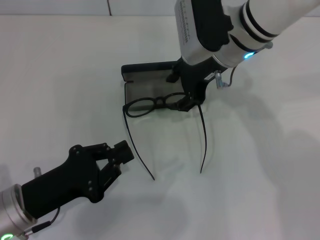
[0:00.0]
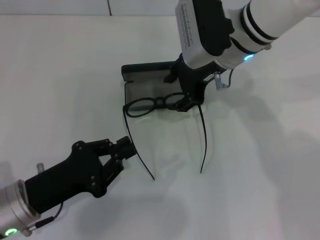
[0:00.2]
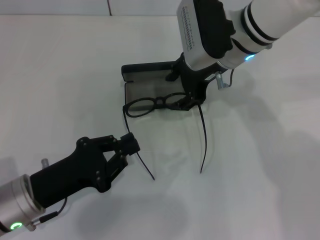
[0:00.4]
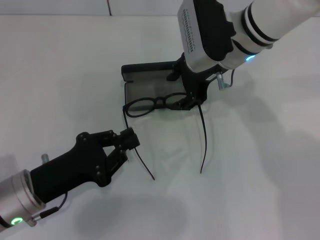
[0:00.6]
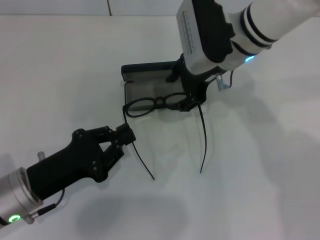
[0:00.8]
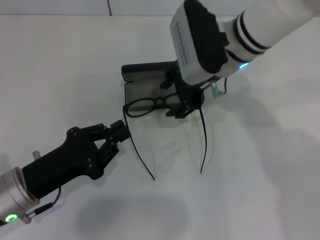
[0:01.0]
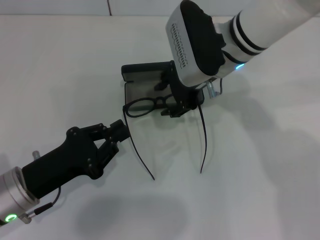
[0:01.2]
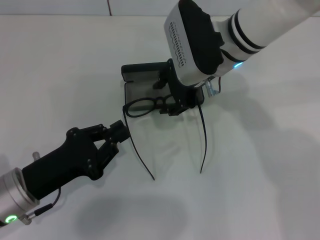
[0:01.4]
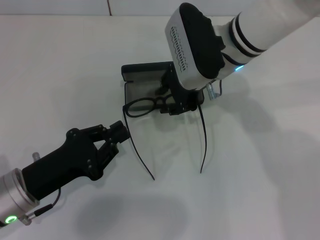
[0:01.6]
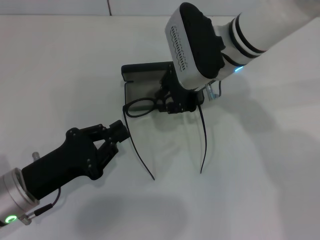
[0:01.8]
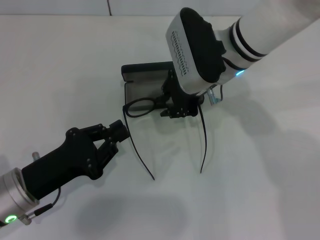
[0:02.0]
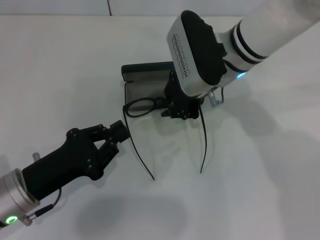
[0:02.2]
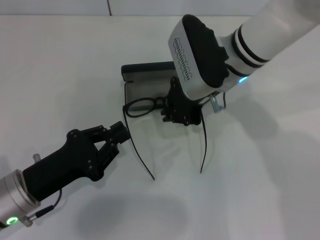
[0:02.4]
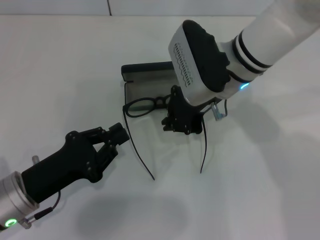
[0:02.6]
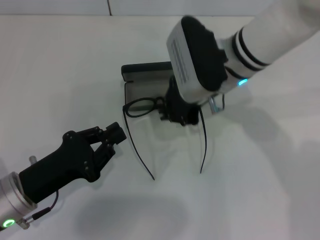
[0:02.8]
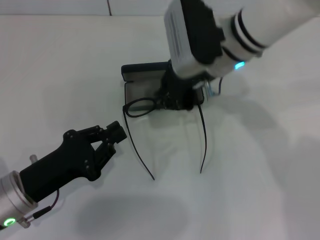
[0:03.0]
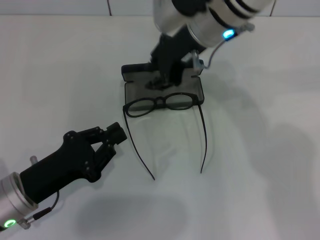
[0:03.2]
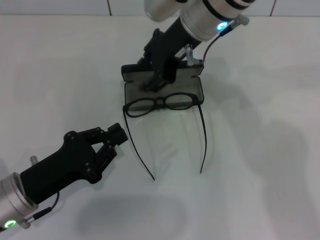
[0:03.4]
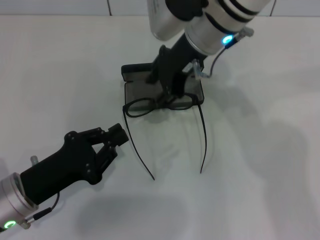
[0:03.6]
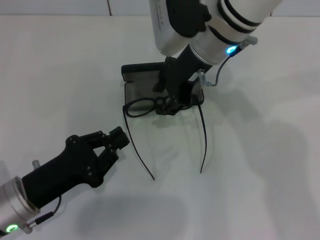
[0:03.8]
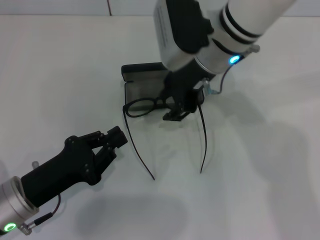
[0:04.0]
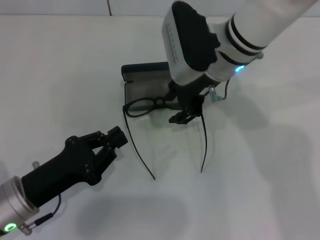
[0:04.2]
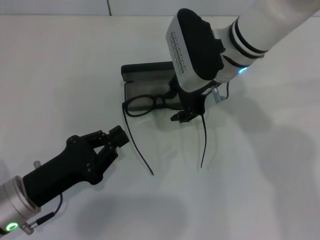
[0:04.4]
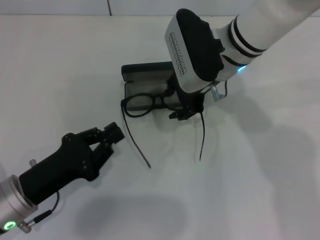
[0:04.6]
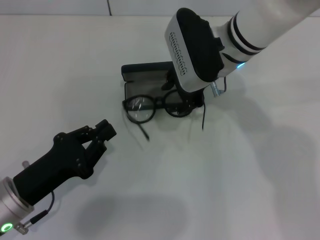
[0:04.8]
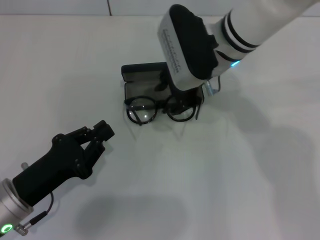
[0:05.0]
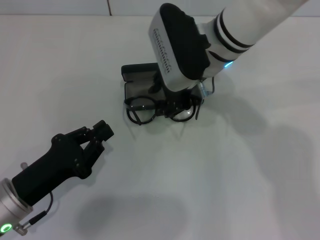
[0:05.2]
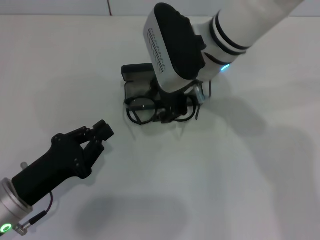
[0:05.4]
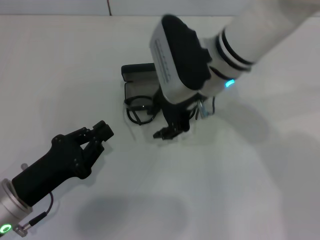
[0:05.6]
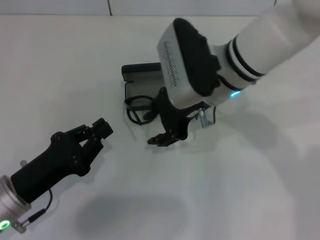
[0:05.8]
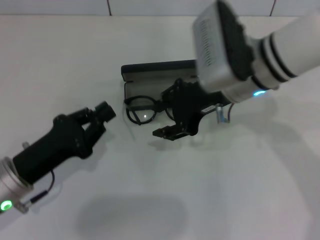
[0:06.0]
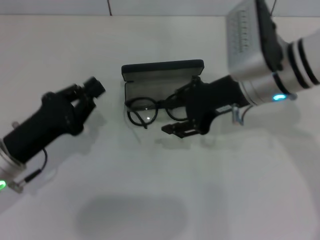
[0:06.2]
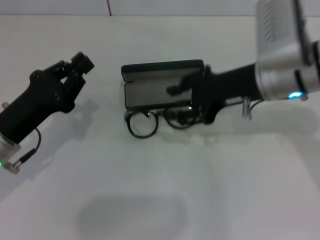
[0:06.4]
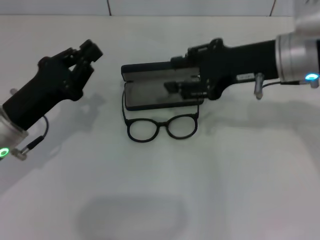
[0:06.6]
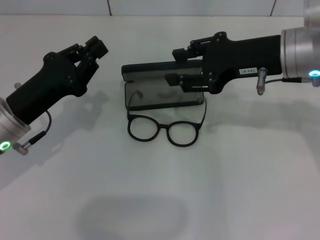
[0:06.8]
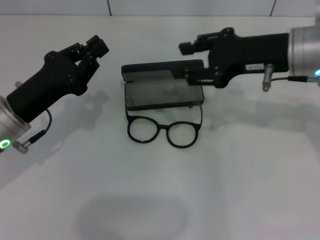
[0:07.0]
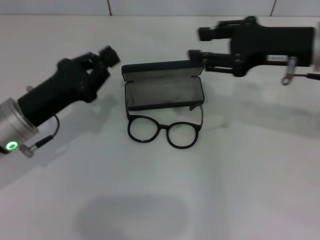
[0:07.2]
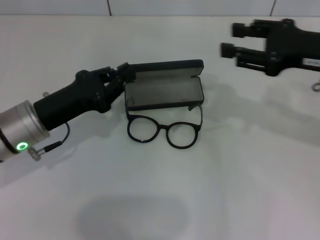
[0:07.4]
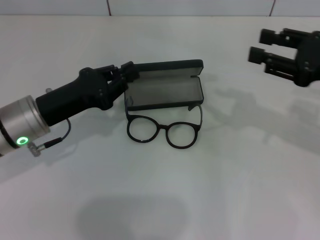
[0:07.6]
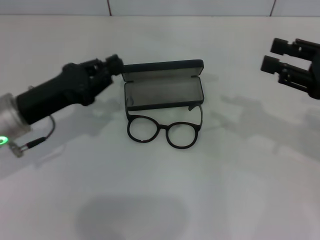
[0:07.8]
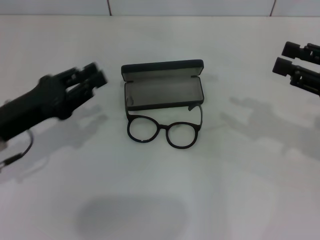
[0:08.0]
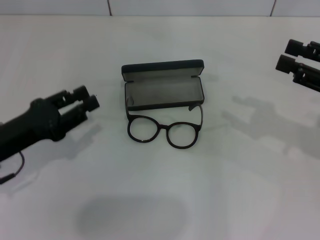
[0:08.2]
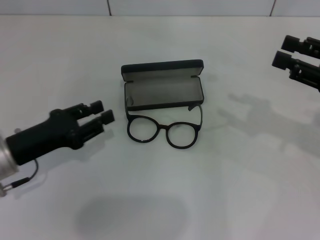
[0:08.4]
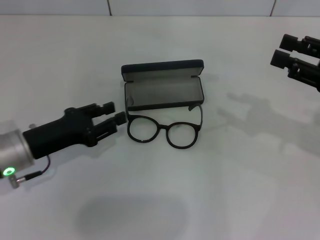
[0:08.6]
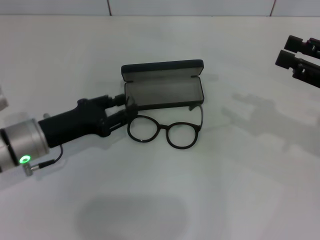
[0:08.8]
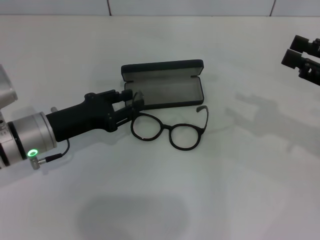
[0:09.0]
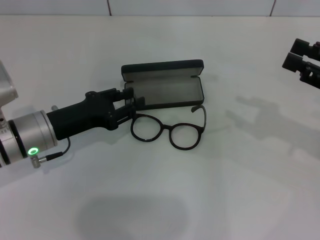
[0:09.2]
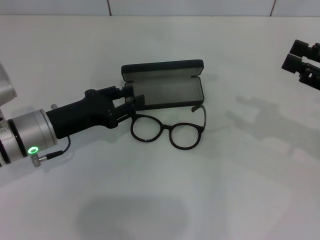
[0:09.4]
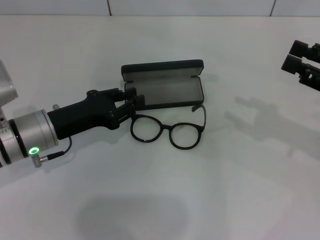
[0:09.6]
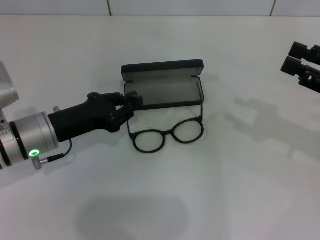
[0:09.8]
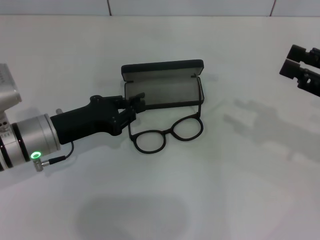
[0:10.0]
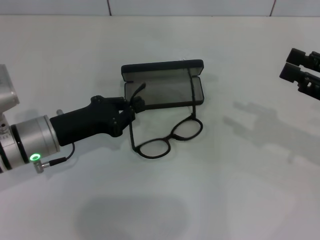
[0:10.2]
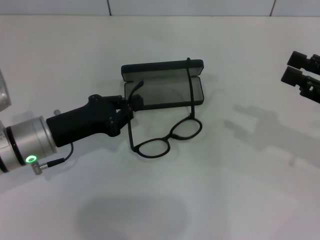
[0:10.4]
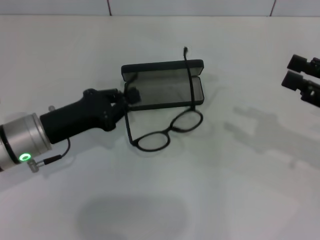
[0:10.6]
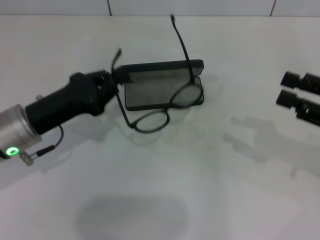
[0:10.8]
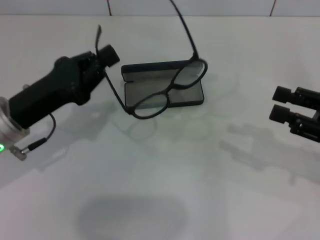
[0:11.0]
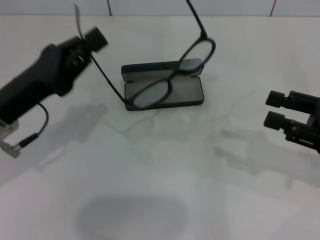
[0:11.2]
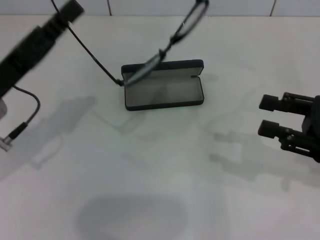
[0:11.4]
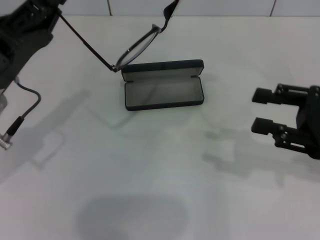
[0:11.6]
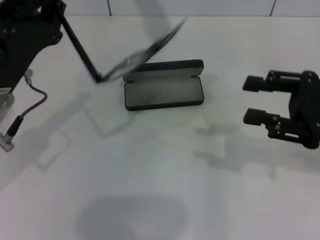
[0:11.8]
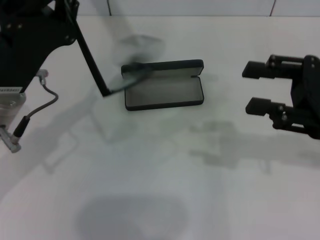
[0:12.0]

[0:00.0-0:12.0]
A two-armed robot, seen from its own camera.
Step, 0:00.0 to 0:10.0: Grab the glasses with your left hand.
0:00.0 to 0:01.6: The grippers move only a little.
0:01.6 to 0:03.0: The right gripper closes its fingers.
0:03.0 to 0:04.4: The right gripper opens.
0:04.4 to 0:06.0: The right gripper moves about 5 cm.
0:06.0 to 0:07.6: The right gripper heads to the right, covering some 20 cm; the left gripper moves forward, some 10 cm.
0:07.6 to 0:09.0: The left gripper opens.
0:09.0 to 0:10.4: The left gripper closes up.
0:10.4 to 0:12.0: The right gripper shifts approximately 5 cm to the left. The left gripper heads upward, covering some 5 cm.

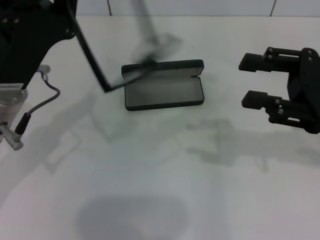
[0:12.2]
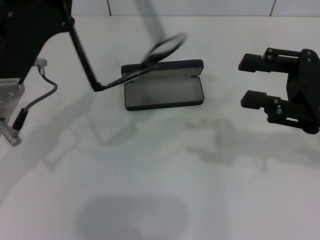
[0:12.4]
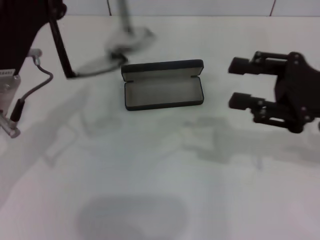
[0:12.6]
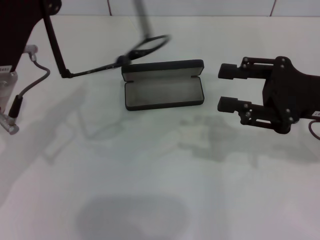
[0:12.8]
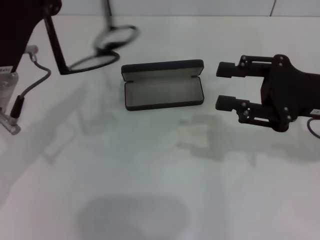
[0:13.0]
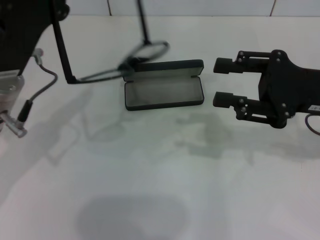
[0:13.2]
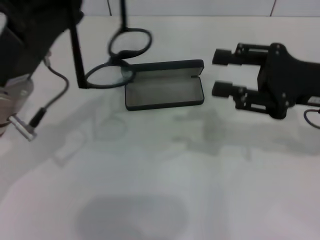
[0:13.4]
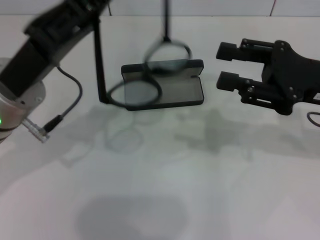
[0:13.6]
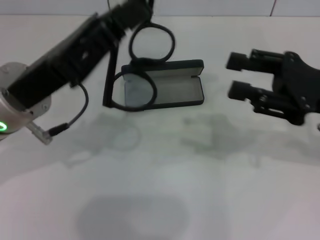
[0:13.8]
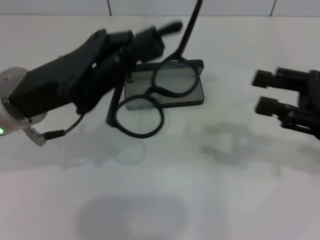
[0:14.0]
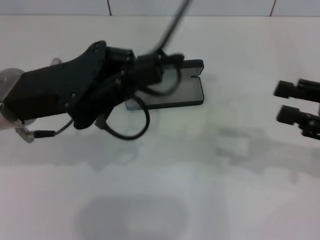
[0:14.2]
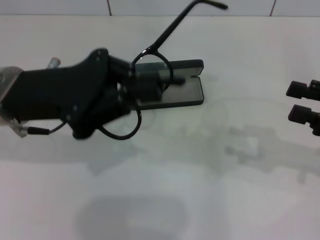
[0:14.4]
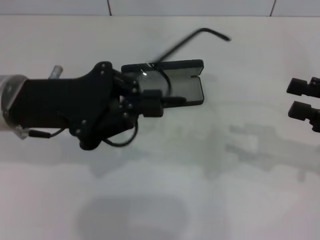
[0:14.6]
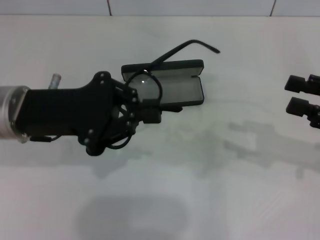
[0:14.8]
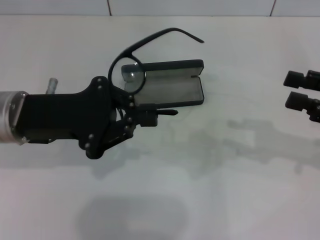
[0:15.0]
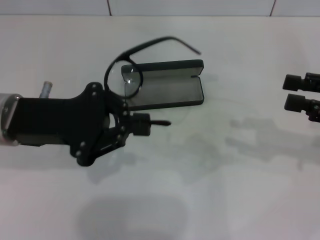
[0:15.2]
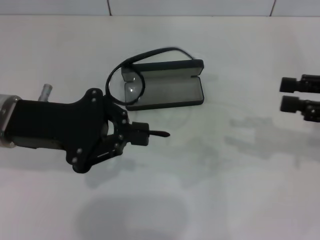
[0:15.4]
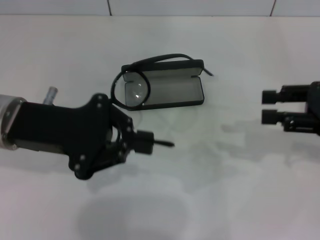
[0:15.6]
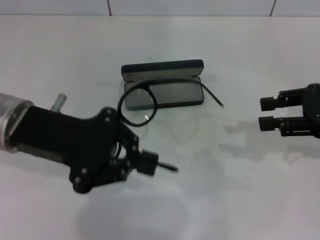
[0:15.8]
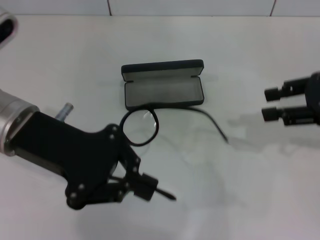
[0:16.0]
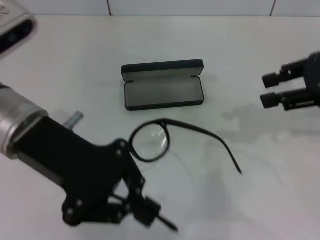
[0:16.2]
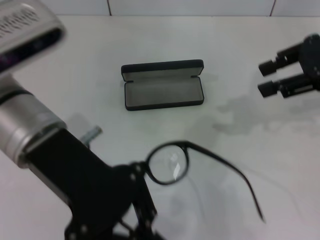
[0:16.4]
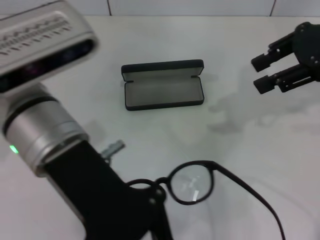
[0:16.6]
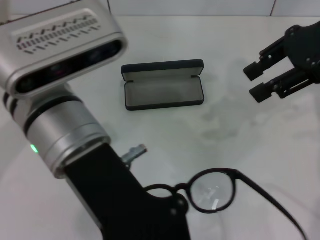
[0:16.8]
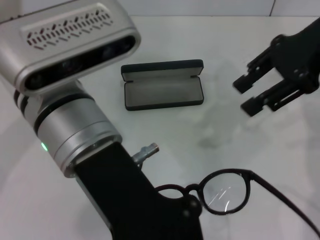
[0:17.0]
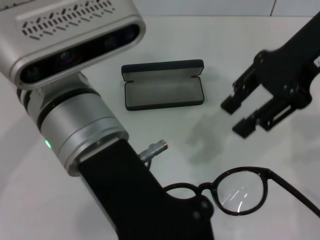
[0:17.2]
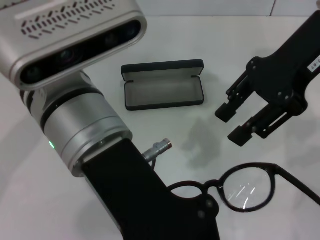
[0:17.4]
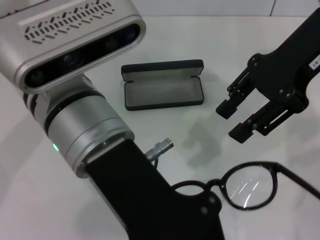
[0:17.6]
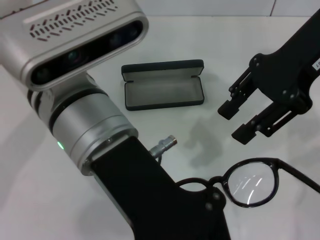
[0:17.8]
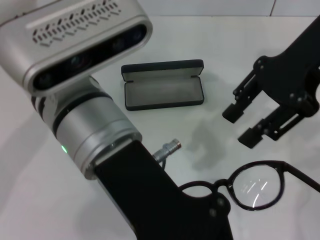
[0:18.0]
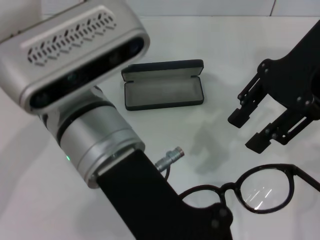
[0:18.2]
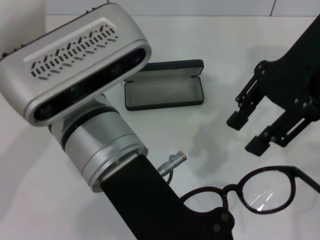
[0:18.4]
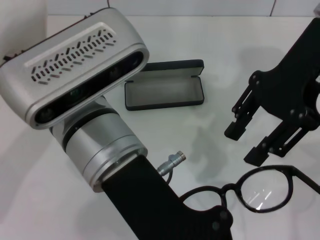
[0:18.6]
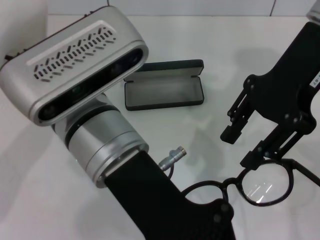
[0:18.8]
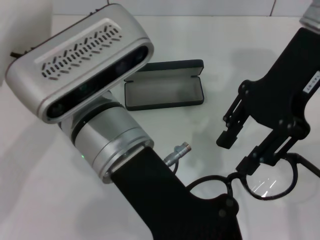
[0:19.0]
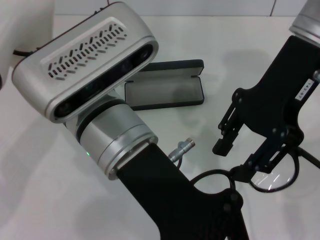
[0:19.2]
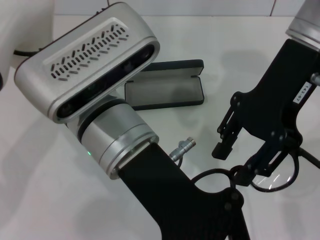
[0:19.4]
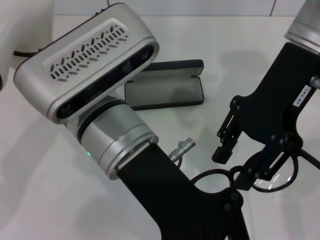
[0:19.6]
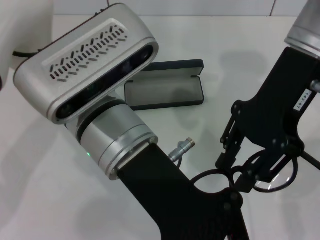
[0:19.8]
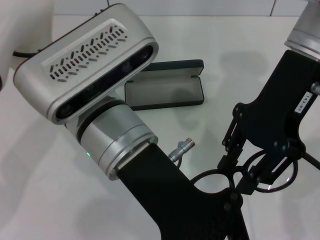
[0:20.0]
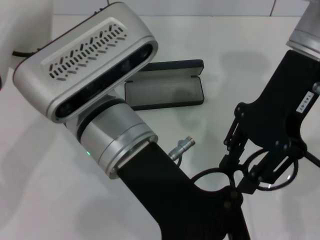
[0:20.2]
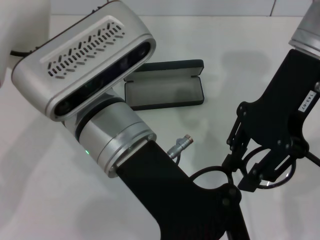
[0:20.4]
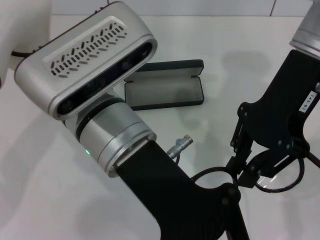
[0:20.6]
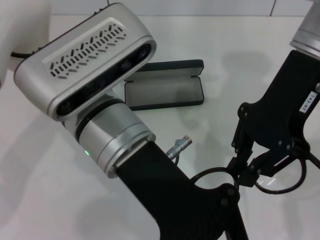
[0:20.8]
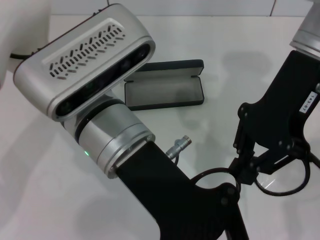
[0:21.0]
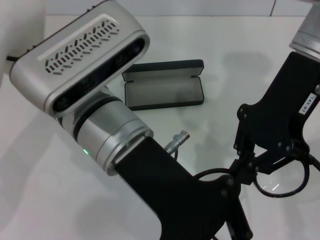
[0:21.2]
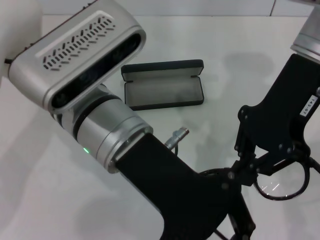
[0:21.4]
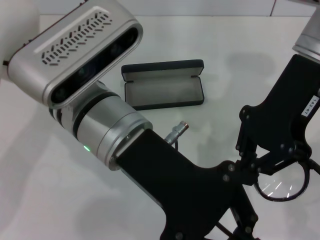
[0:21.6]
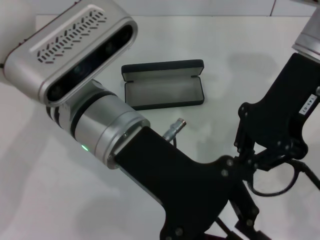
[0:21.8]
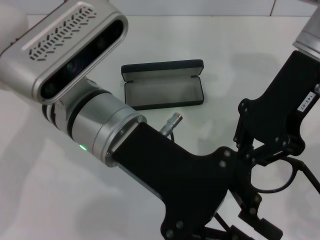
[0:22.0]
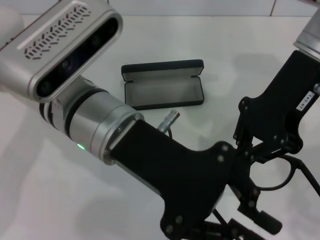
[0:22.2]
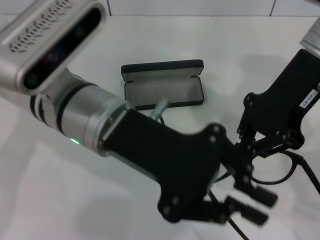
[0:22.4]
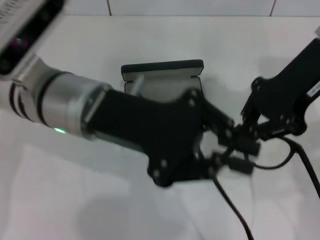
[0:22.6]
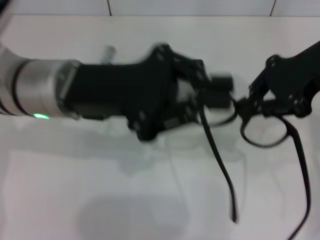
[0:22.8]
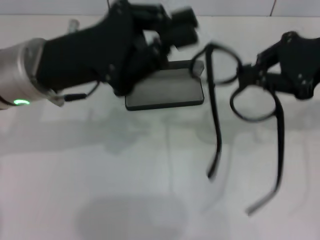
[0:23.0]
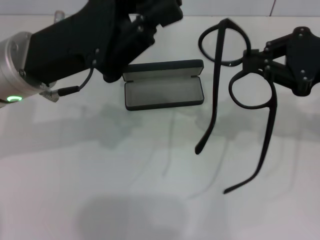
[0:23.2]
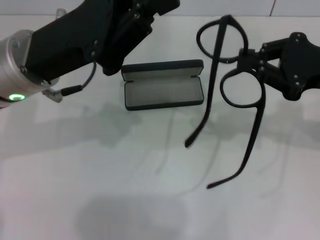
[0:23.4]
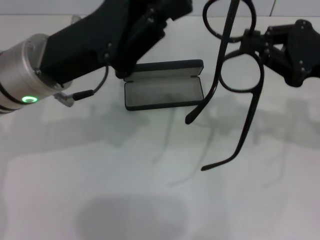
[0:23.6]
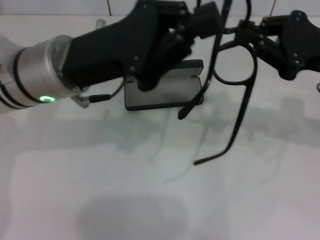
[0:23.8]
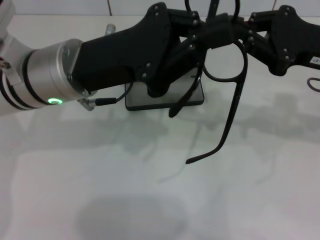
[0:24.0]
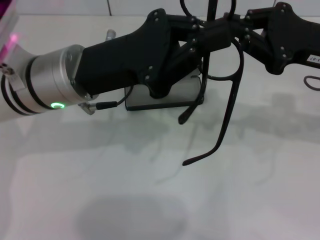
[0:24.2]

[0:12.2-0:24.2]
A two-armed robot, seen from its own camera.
Step, 0:12.2 to 0:21.4: Grab the eyeglass frame with your right hand.
0:13.8 to 0:15.2: The right gripper moves to the right, some 5 cm.
0:15.2 to 0:16.6: The left gripper heads to the right, covering roughly 10 cm. The right gripper travels upward, to the left and forward by some 15 cm.
0:16.6 to 0:18.2: The left gripper goes some 5 cm to the right. Meanwhile the right gripper heads to the left, covering about 5 cm.
0:18.2 to 0:19.8: The right gripper moves approximately 5 cm.
0:19.8 to 0:21.2: The right gripper closes.
0:22.6 to 0:24.2: The right gripper is displaced downward and to the right by roughly 10 cm.
